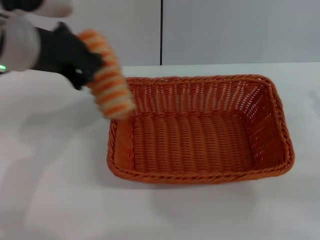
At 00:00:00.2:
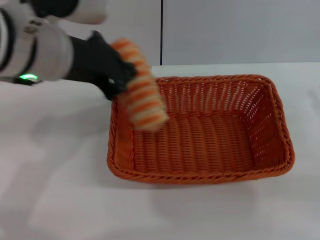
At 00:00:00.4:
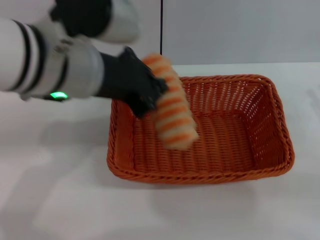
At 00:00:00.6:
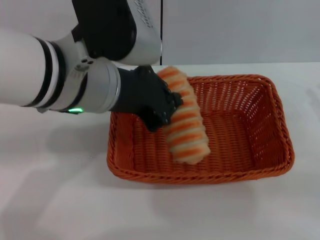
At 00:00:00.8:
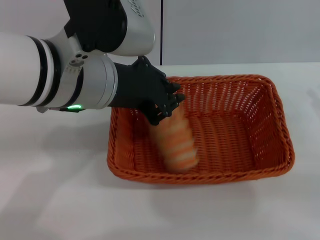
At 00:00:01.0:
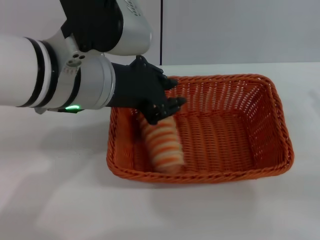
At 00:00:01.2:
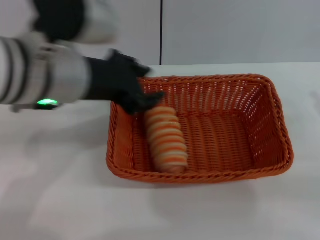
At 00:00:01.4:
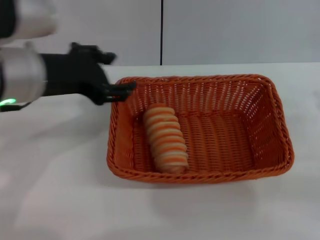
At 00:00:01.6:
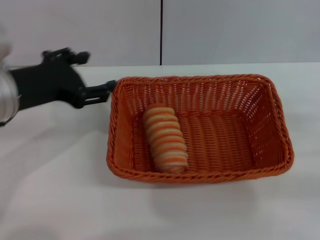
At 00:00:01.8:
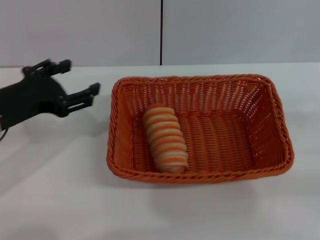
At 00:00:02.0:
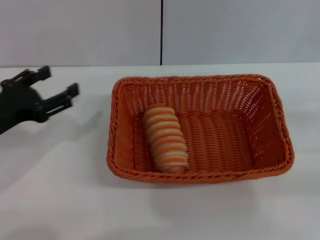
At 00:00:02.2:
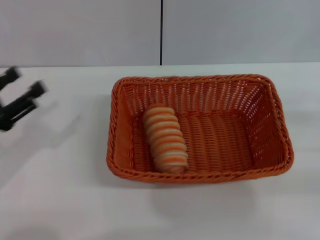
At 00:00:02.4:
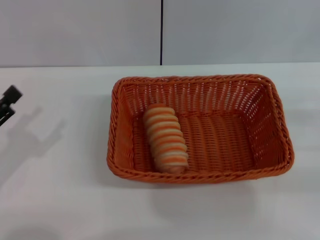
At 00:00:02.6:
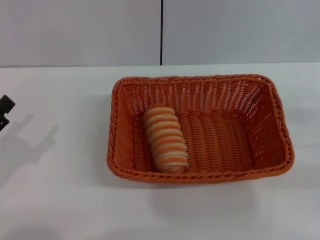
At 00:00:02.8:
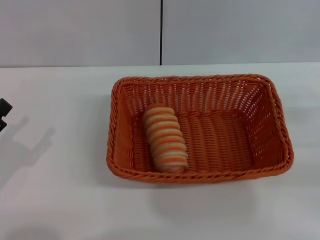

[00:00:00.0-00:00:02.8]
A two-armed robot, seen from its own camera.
Step, 00:00:00.0 to 00:00:01.4: Place the long bread into the light basket with the left gripper.
00:00:00.0 to 00:00:01.4: The left gripper moves roughly 5 cm to the right and comes back, and opens its fingers.
00:00:01.4 to 00:00:02.8: The left gripper goes about 25 cm downward, to the left and backward, and opens up.

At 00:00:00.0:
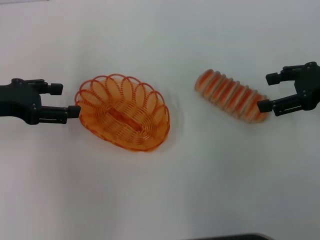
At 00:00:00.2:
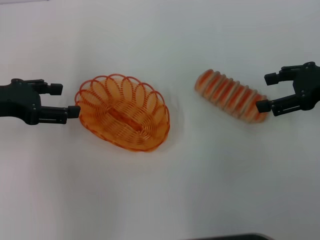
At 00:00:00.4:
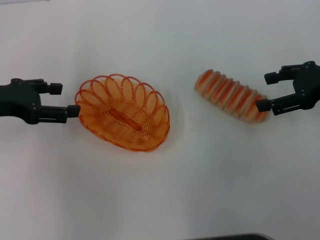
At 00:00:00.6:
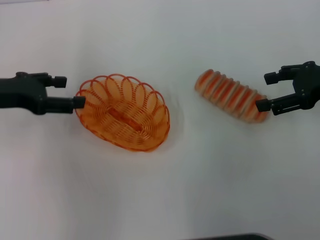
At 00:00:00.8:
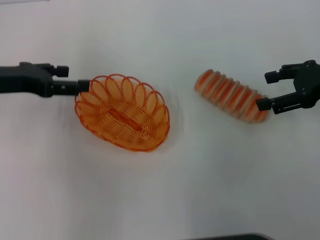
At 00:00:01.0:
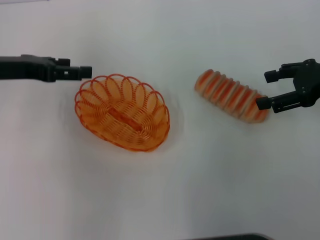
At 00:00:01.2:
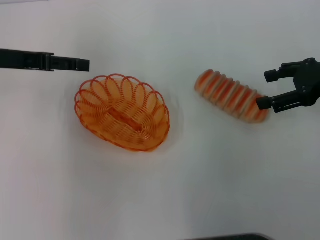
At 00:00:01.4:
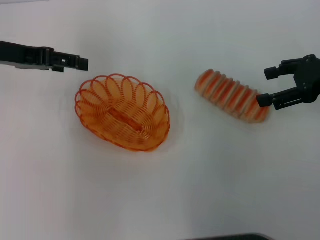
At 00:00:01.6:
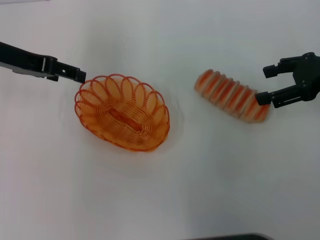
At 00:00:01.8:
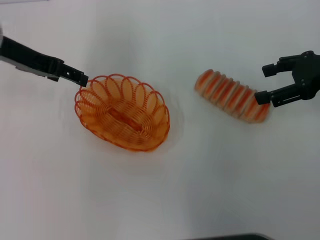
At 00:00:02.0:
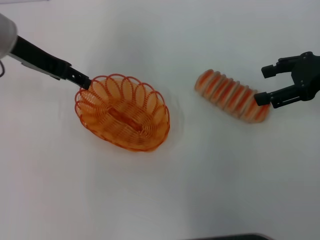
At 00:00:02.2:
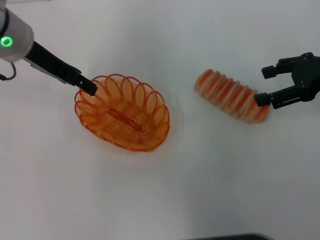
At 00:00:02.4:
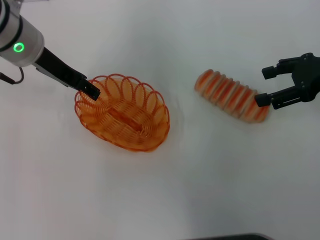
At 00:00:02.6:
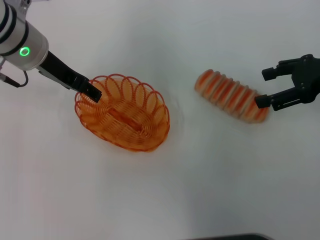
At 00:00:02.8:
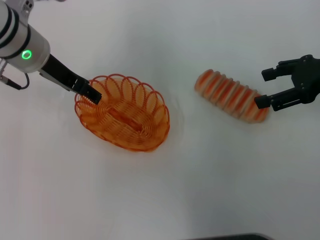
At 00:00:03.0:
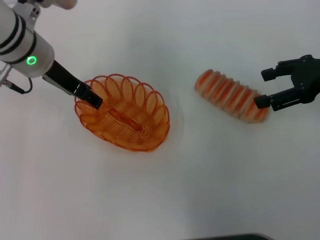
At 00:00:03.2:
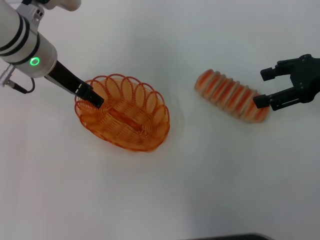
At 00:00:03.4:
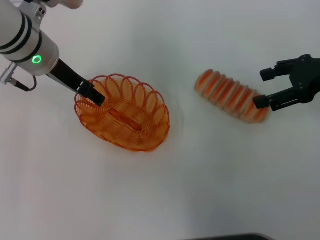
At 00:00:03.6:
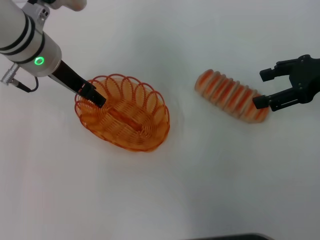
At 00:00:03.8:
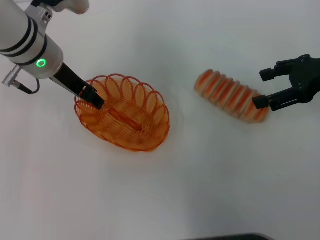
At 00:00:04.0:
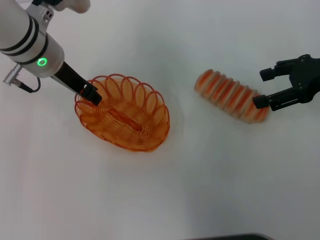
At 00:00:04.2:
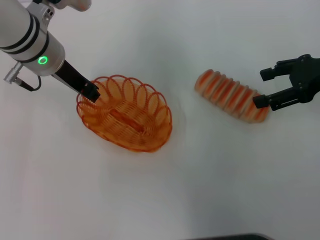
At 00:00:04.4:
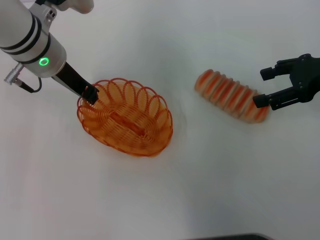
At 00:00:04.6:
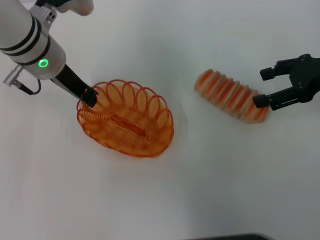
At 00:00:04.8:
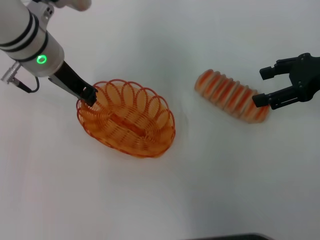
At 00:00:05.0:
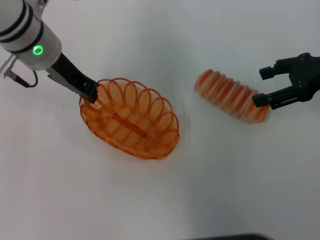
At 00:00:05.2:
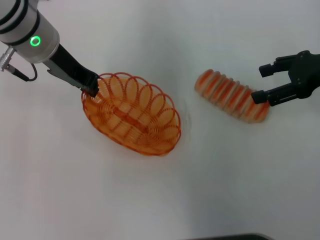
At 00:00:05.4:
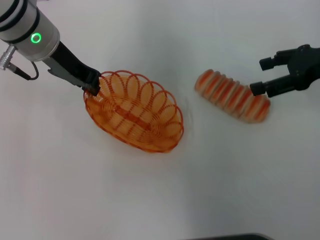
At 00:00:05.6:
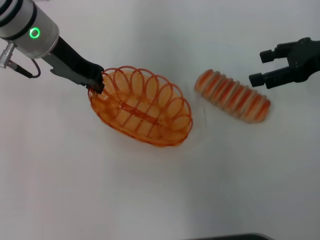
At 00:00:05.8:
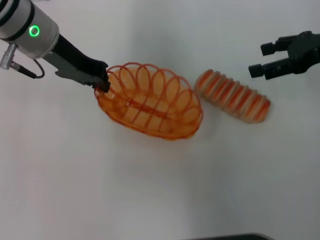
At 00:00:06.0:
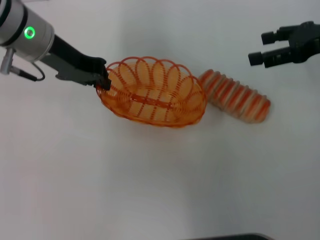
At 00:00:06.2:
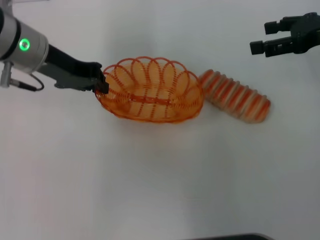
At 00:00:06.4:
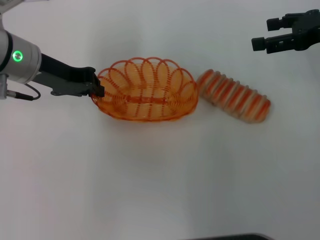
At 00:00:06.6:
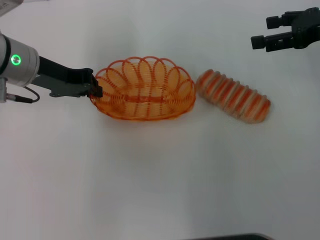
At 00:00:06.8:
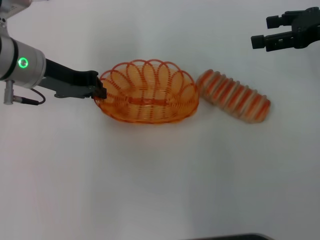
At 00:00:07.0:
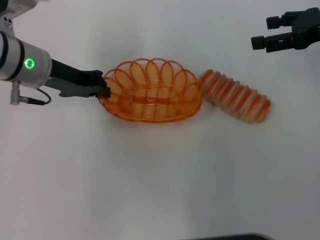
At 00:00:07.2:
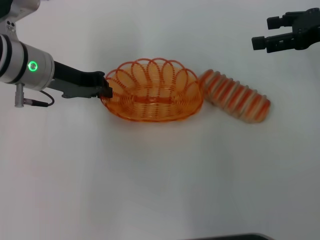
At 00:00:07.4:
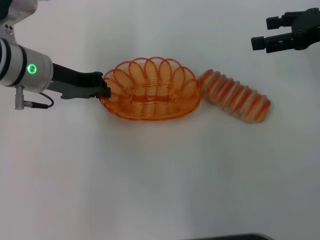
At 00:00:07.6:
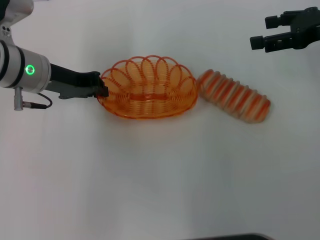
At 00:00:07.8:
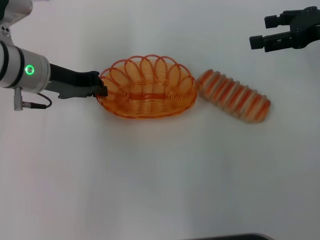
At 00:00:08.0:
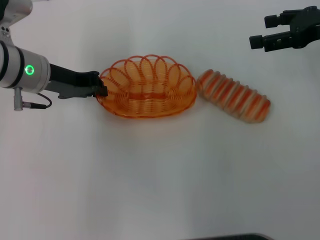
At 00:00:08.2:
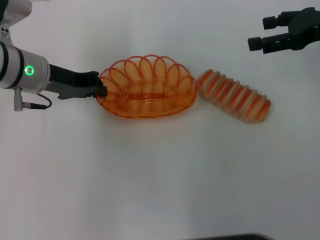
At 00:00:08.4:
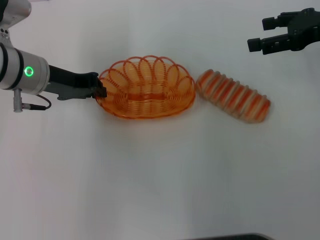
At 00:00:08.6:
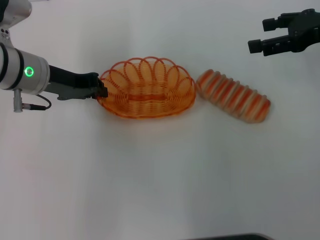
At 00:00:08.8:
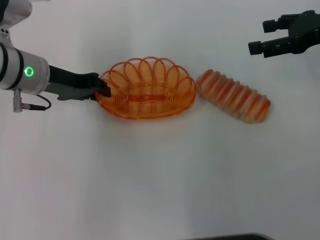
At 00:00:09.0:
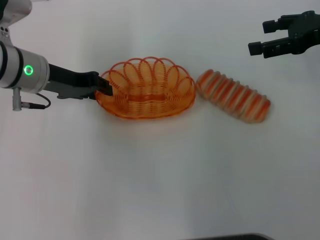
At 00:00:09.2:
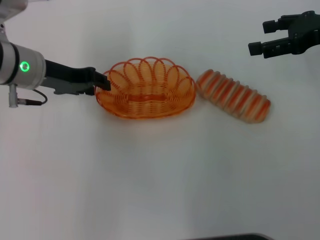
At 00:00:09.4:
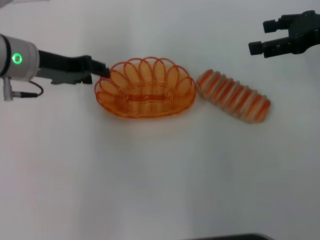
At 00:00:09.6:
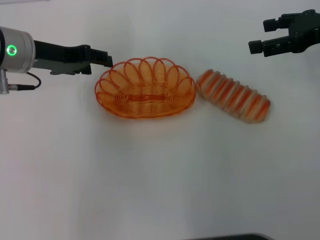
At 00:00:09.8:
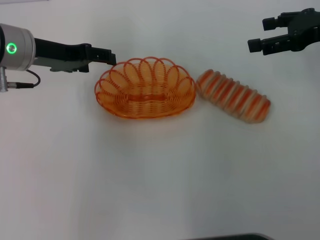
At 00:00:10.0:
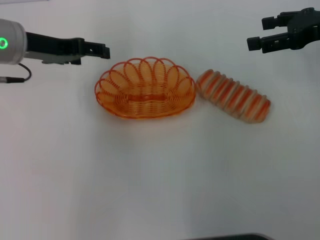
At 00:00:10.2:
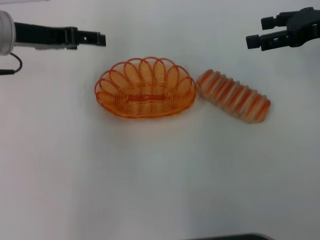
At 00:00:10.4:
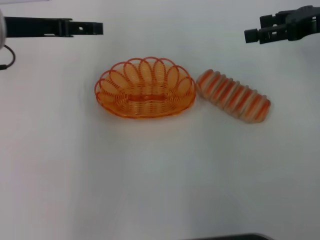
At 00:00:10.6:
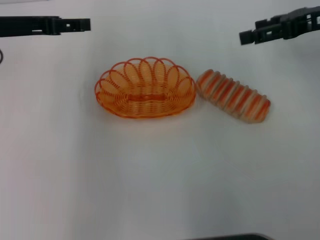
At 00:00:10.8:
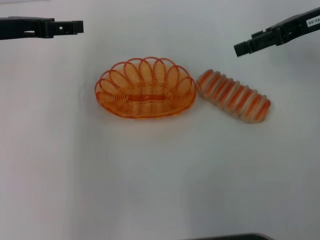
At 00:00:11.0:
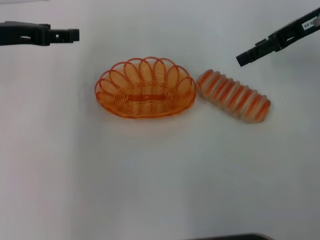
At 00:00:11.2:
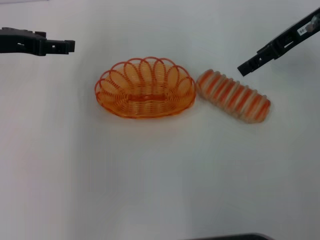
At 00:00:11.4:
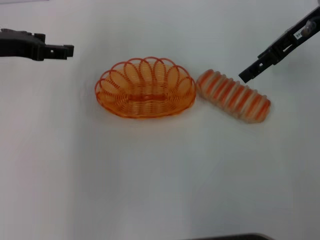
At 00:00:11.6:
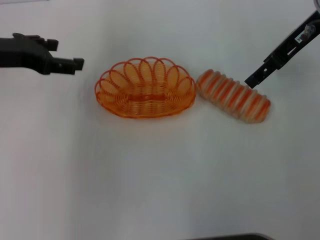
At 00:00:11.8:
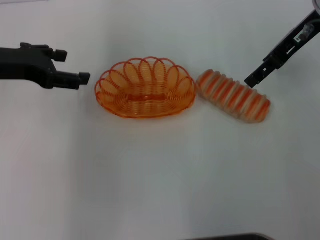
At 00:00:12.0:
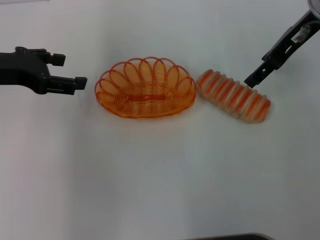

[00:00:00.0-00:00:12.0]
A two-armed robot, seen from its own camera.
Step, 00:00:00.0 to 00:00:05.4: Pick up the basket with the left gripper.
Step, 00:00:05.8 to 00:00:10.0: Place the basket in the center of view with the left gripper.
00:00:00.0 to 00:00:01.6: The left gripper travels forward by about 5 cm.
00:00:01.6 to 00:00:03.0: The left gripper moves to the right, approximately 10 cm.
00:00:03.0 to 00:00:04.4: The left gripper closes up.
00:00:06.0 to 00:00:07.6: The left gripper moves downward, some 5 cm.
00:00:07.6 to 00:00:09.0: The two grippers keep their place.
00:00:09.0 to 00:00:10.4: The left gripper moves upward, roughly 5 cm, and opens.
00:00:10.4 to 00:00:12.0: The right gripper is displaced to the left by roughly 10 cm. The left gripper ends up roughly 5 cm from where it was.

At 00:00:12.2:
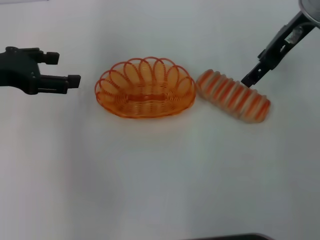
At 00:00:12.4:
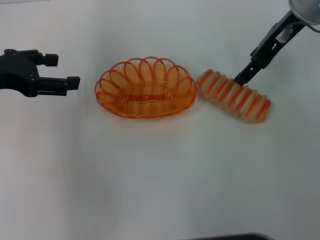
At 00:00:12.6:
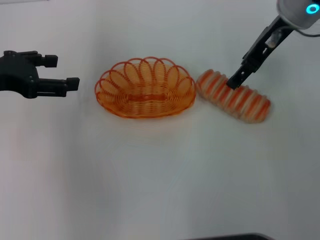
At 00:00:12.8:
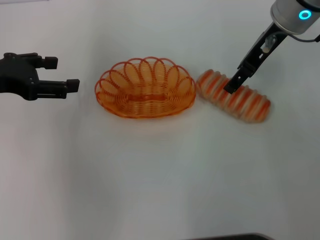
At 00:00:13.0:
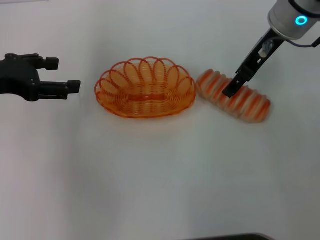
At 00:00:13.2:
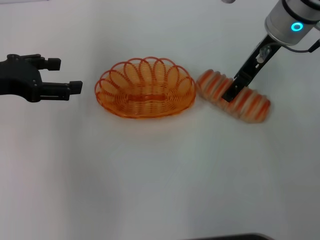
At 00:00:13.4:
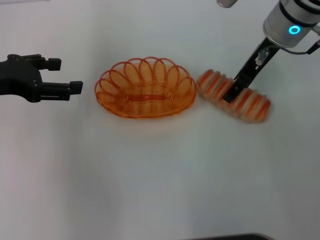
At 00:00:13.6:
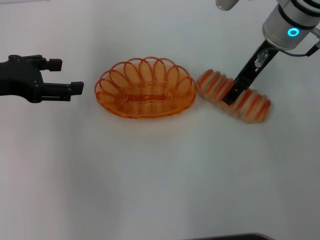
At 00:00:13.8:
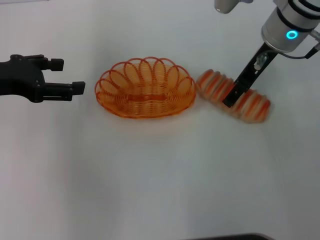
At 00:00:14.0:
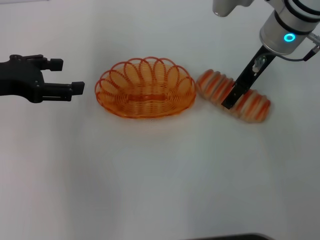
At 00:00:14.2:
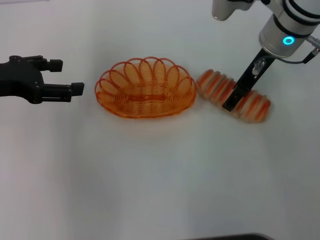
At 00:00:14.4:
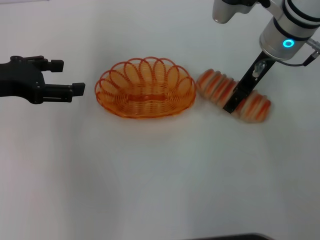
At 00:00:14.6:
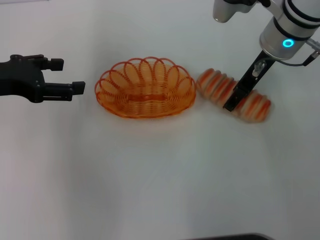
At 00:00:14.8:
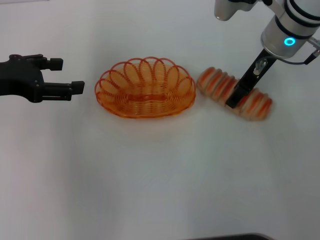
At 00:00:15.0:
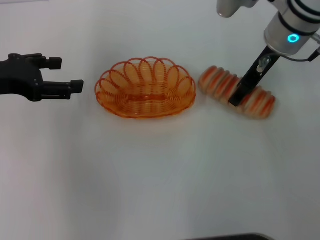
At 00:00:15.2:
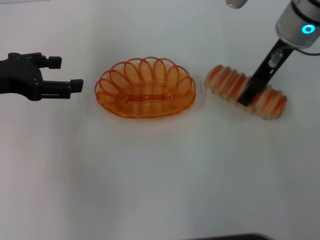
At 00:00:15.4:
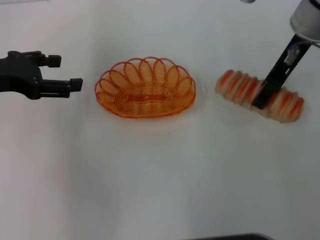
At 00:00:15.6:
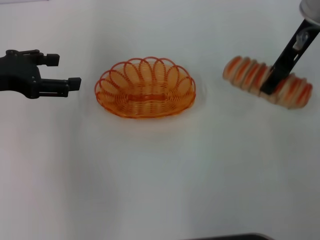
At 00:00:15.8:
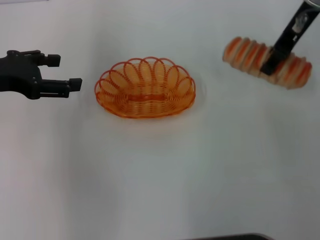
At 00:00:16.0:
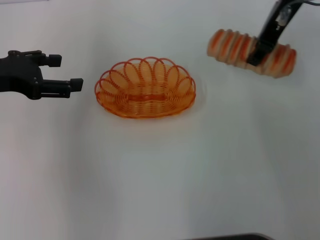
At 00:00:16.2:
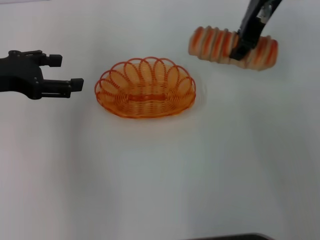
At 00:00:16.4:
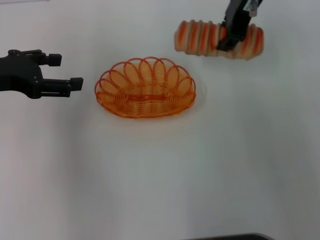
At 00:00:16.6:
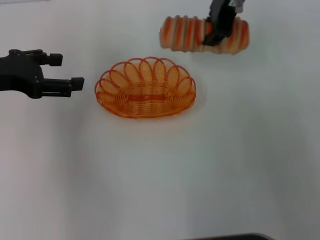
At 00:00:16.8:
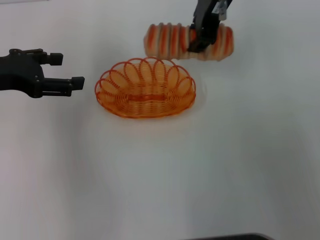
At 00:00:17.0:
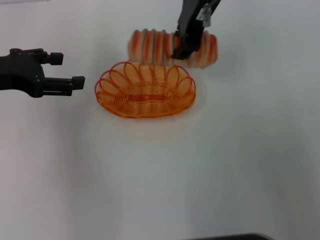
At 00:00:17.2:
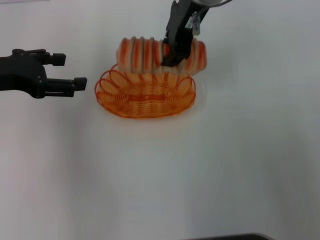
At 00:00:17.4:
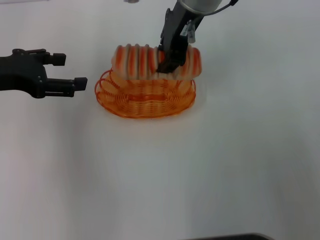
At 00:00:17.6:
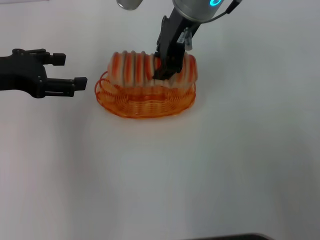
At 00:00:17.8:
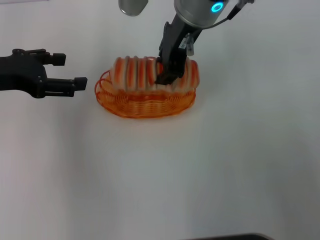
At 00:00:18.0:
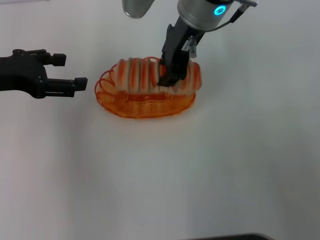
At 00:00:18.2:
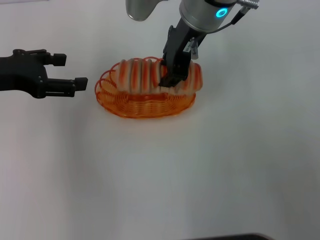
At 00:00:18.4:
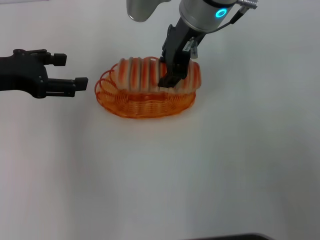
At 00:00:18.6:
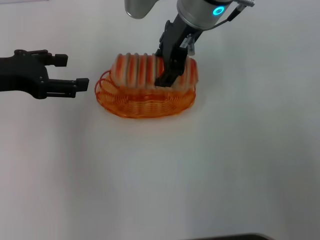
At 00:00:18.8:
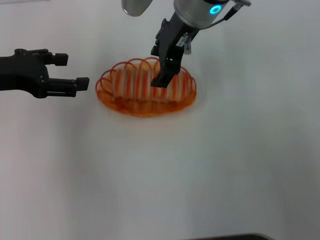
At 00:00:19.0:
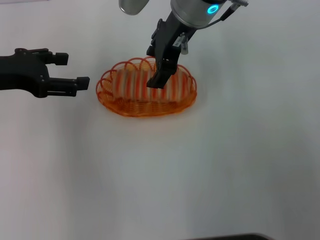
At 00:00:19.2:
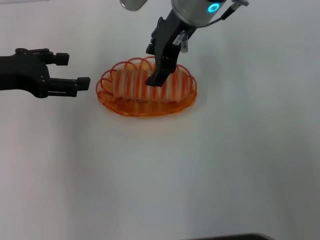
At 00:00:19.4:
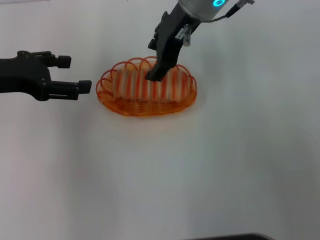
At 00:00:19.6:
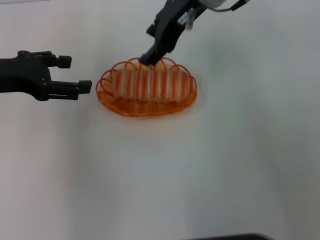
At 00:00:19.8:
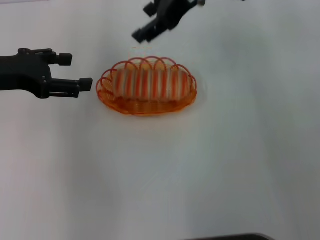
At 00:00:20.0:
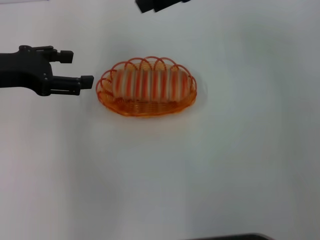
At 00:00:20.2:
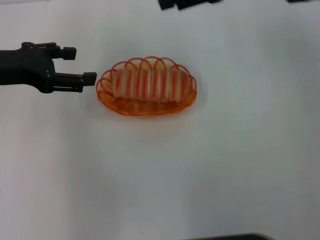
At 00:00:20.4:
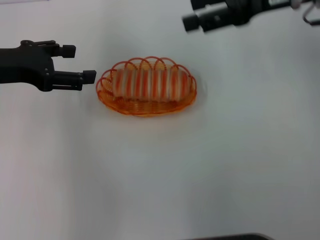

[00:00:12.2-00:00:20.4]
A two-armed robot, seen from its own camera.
Step, 00:00:12.2 to 00:00:15.2: Pick up the long bread with the right gripper.
Step, 00:00:15.4 to 00:00:19.6: Place the long bread into the basket with the right gripper.
00:00:12.2 to 00:00:13.8: The right gripper shifts by approximately 5 cm.
00:00:13.8 to 00:00:15.4: The right gripper closes up.
00:00:15.4 to 00:00:17.2: The right gripper shifts about 15 cm to the left, and closes its fingers.
00:00:17.2 to 00:00:18.8: The right gripper opens.
00:00:18.8 to 00:00:20.4: The right gripper is displaced to the right by approximately 20 cm.
